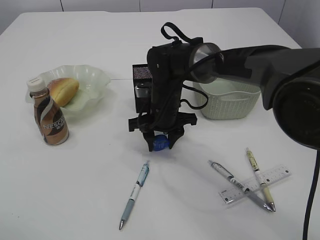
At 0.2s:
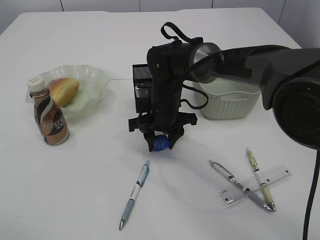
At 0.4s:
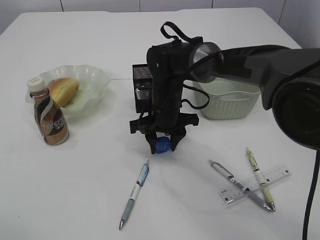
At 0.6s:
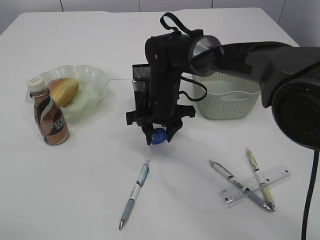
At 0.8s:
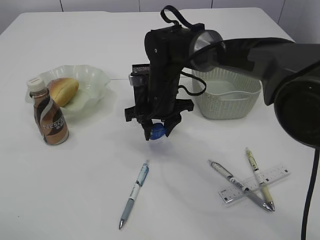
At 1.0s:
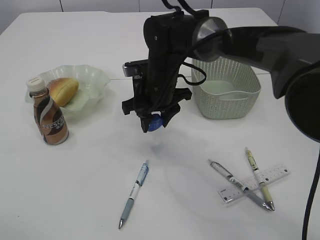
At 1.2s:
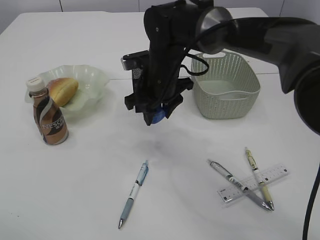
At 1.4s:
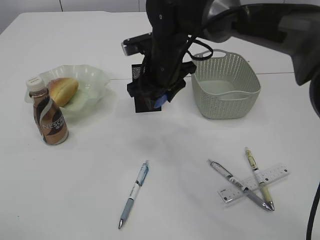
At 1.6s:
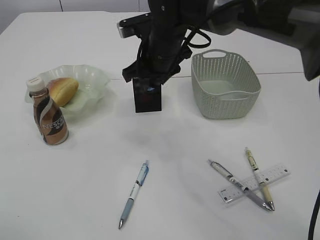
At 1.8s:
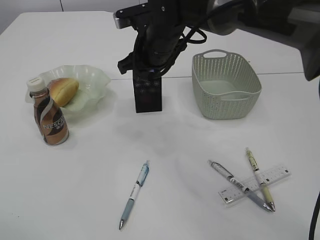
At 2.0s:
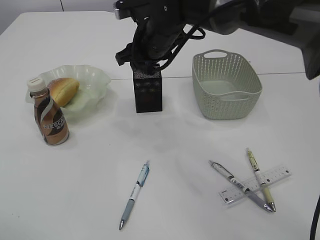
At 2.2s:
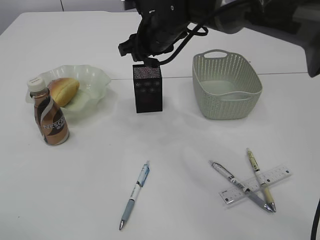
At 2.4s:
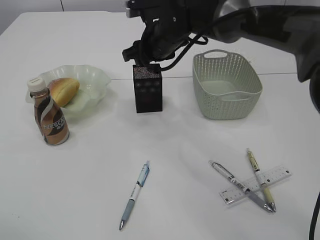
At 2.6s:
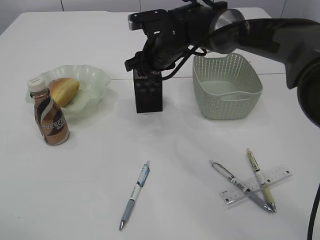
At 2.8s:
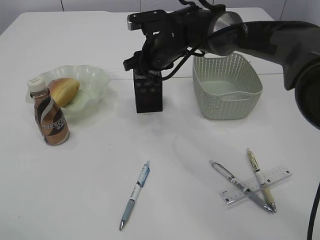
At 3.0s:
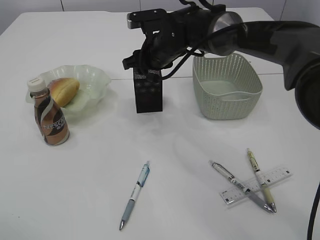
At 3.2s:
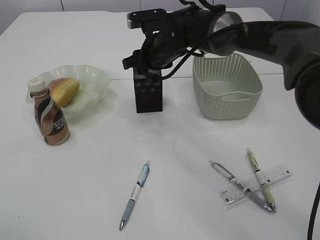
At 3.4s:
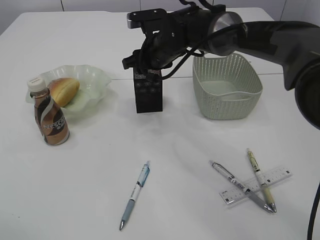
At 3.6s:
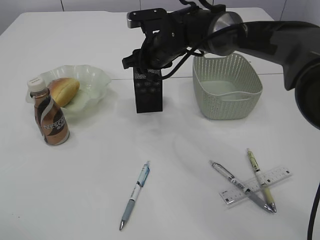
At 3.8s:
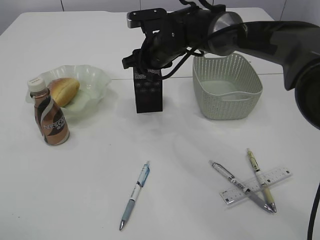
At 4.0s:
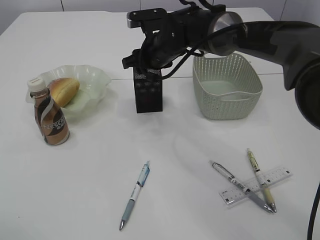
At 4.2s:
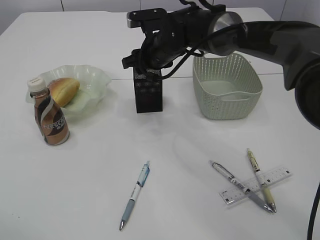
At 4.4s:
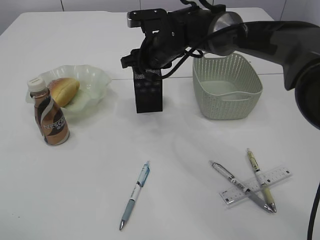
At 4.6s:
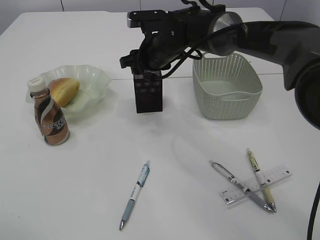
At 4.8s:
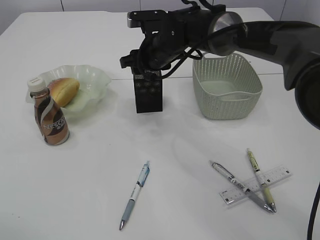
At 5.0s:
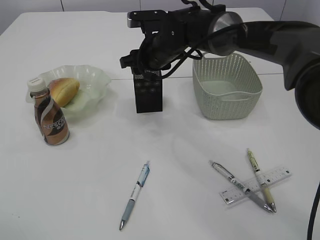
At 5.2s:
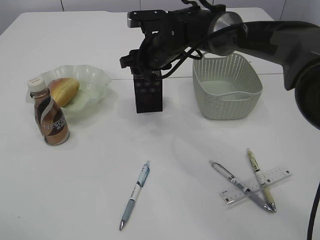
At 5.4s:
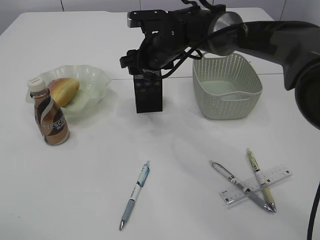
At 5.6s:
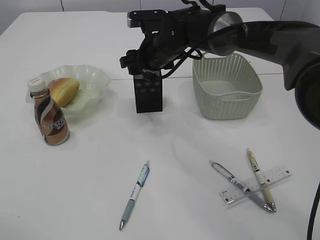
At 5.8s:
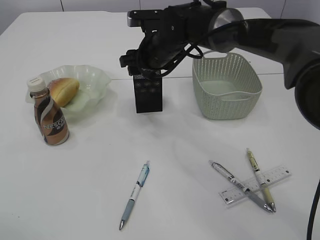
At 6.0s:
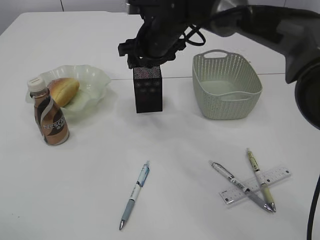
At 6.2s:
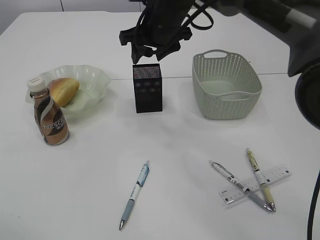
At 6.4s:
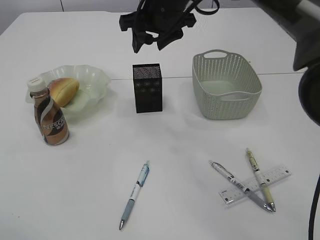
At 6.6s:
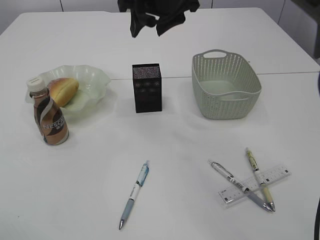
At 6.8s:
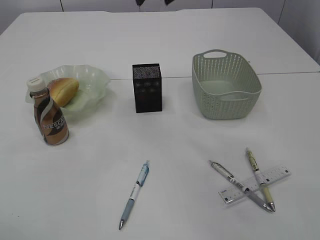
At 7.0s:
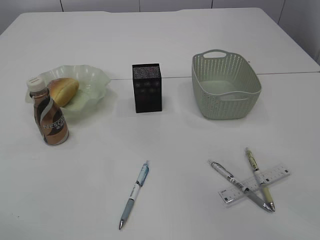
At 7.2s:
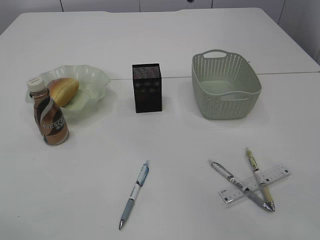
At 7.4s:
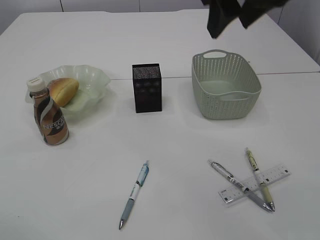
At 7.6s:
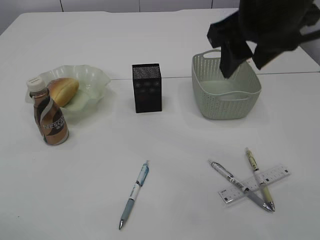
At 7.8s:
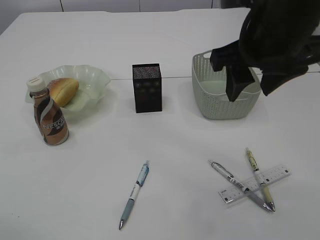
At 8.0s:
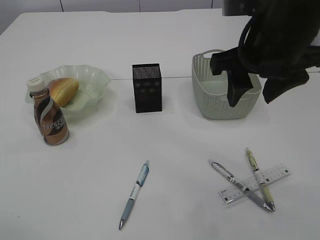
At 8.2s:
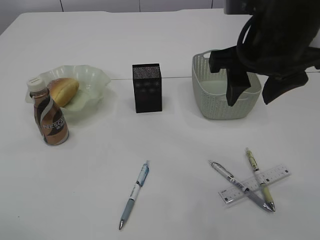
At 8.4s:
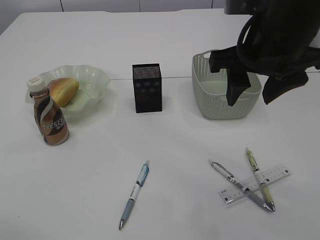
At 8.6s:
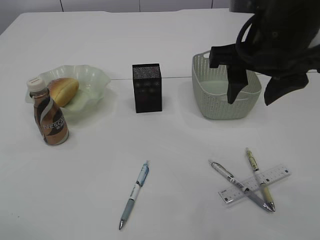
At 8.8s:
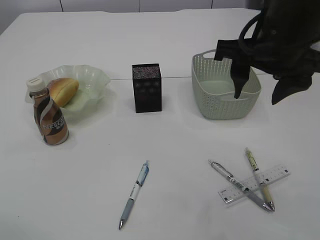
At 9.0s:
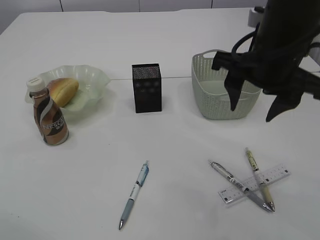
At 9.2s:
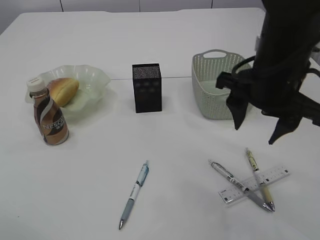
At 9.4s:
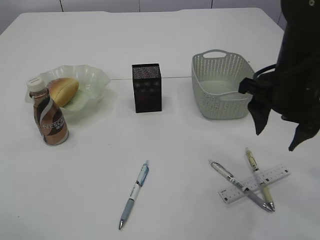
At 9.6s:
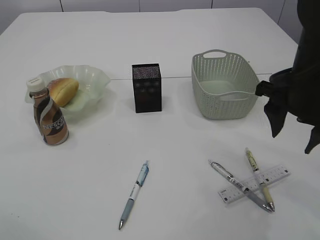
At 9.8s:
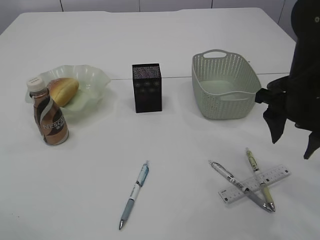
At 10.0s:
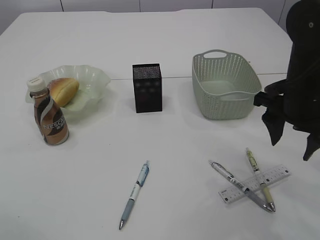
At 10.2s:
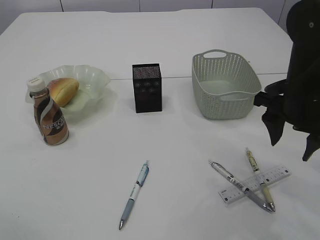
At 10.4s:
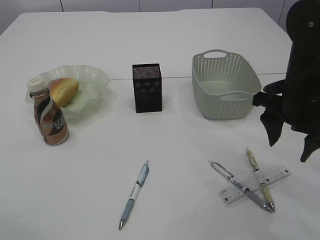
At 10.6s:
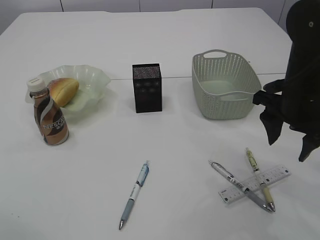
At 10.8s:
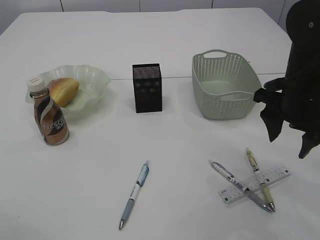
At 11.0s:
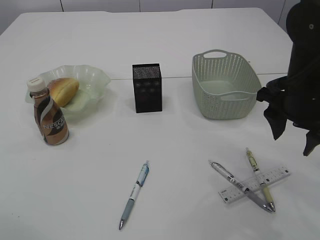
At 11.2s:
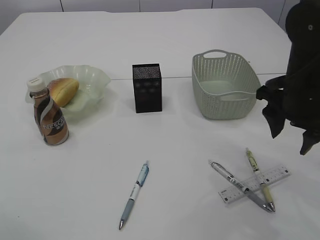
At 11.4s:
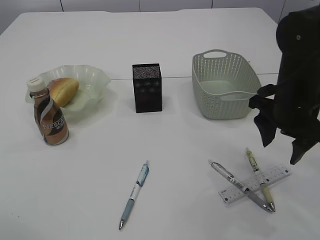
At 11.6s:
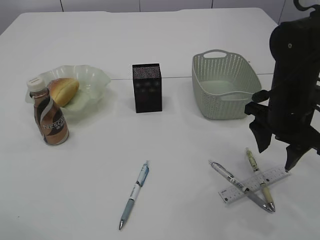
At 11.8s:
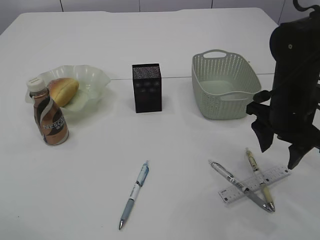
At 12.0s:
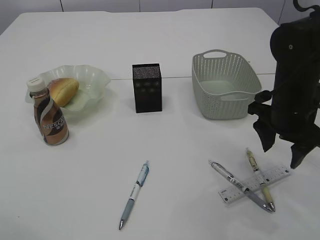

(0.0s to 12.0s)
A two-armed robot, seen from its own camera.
Step, 1.4s - 6.2s: Place the blue pencil sharpener into the pen holder.
0.0s - 1.6s: The right gripper shifts some 10 cm upward.
1.6s - 3.0s: The right gripper travels forward by about 5 cm.
3.0s - 4.4s: The two grippers keep their place.
4.4s - 6.0s: There are only small adjustments of the grippers.
6.0s - 7.6s: The right gripper is displaced backward, upward and to the right by roughly 25 cm.
7.6s - 9.0s: The right gripper travels downward by roughly 5 cm.
9.0s - 10.4s: The right gripper shifts roughly 10 cm downward and to the right.
10.4s - 12.0s: The grippers stay close to where they were, moving slightly.

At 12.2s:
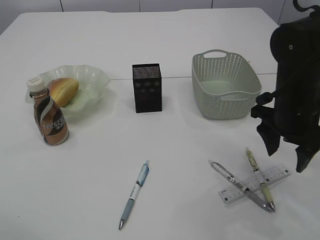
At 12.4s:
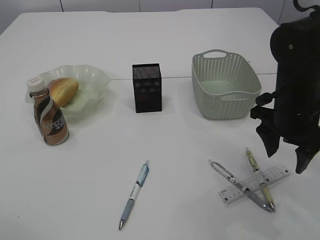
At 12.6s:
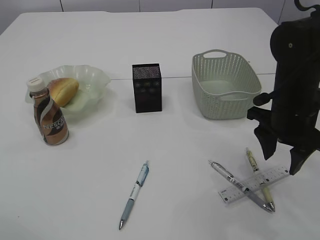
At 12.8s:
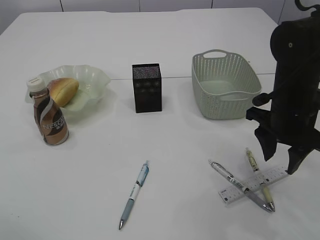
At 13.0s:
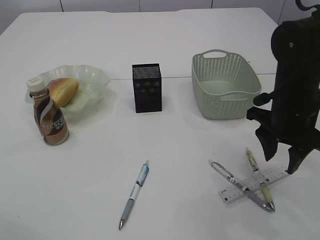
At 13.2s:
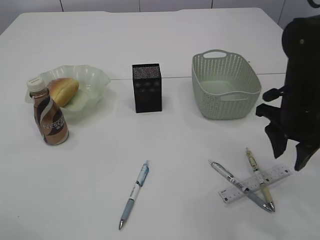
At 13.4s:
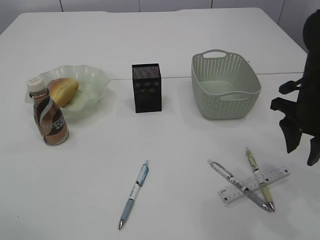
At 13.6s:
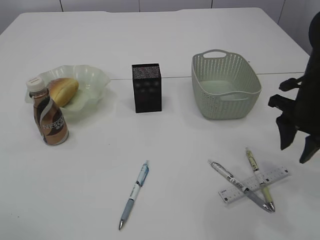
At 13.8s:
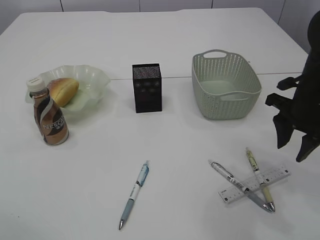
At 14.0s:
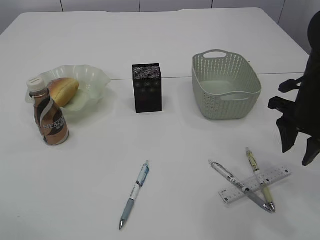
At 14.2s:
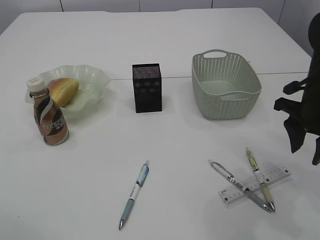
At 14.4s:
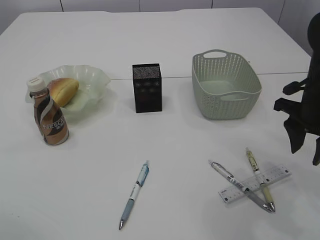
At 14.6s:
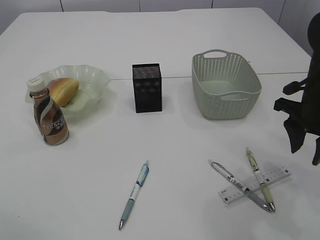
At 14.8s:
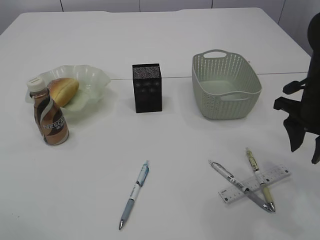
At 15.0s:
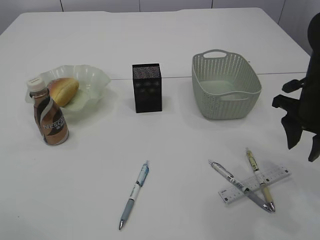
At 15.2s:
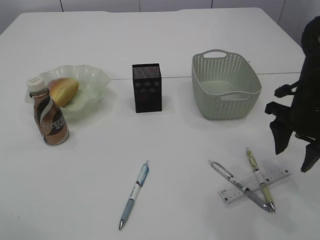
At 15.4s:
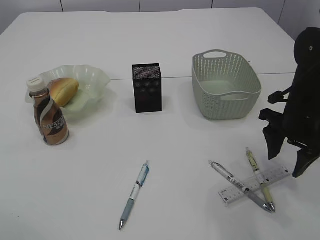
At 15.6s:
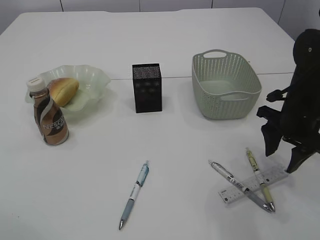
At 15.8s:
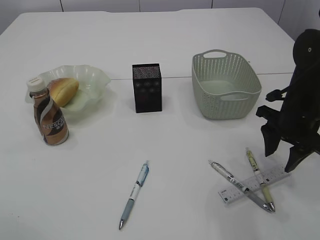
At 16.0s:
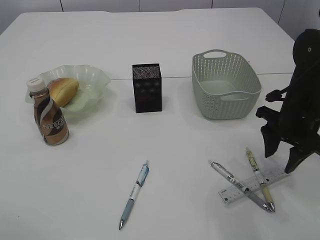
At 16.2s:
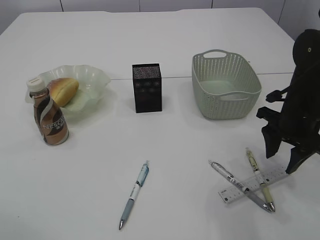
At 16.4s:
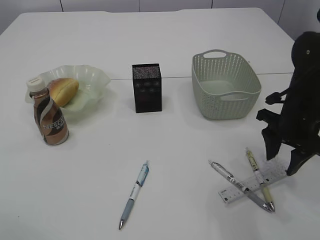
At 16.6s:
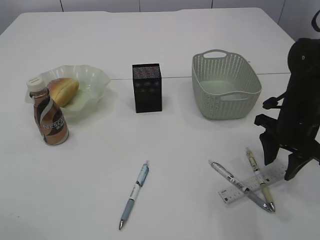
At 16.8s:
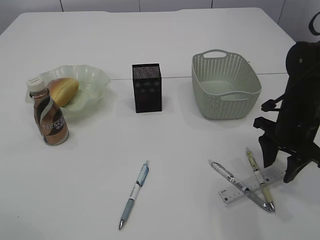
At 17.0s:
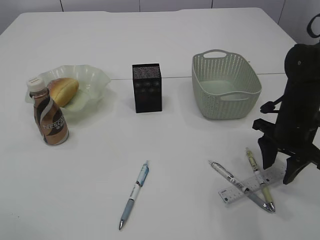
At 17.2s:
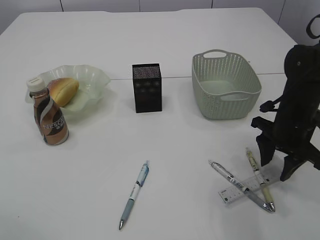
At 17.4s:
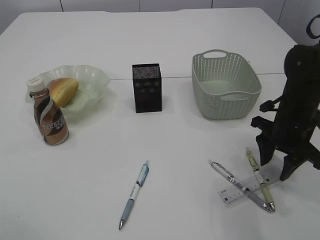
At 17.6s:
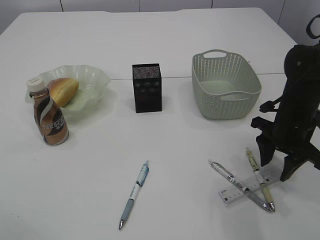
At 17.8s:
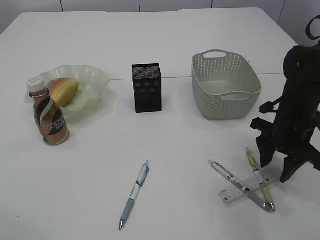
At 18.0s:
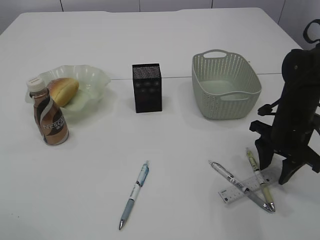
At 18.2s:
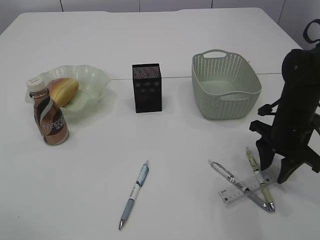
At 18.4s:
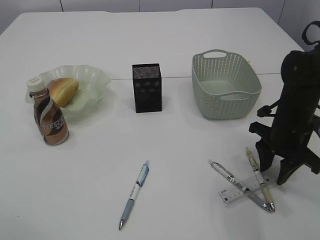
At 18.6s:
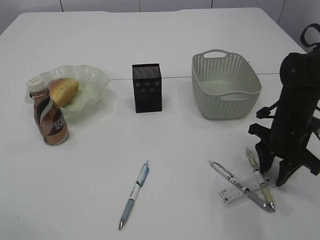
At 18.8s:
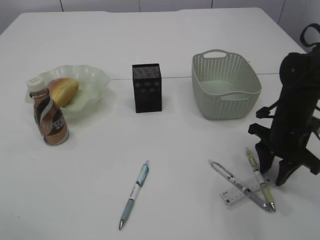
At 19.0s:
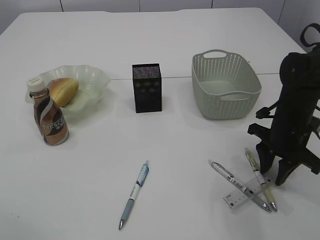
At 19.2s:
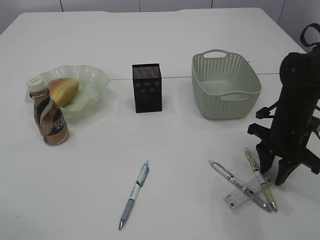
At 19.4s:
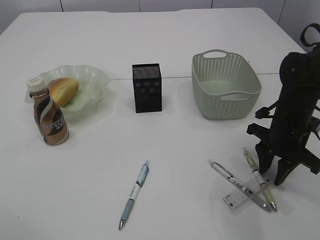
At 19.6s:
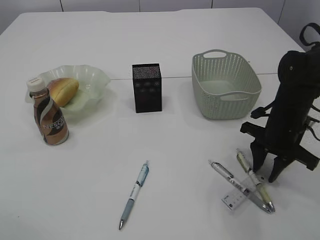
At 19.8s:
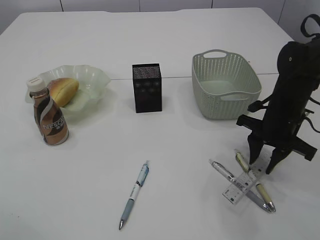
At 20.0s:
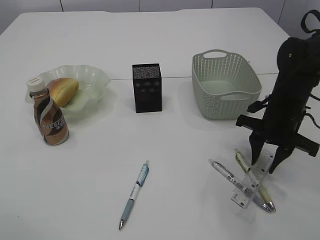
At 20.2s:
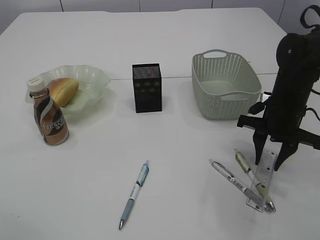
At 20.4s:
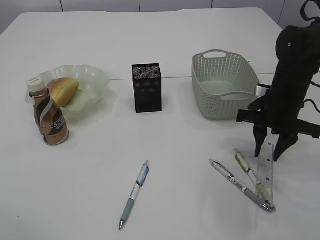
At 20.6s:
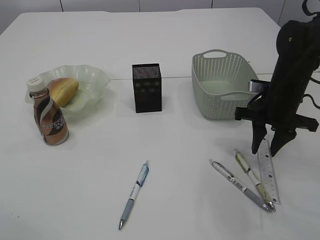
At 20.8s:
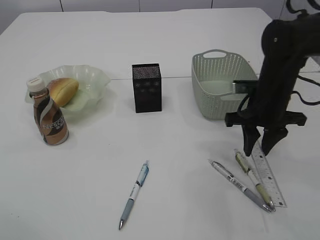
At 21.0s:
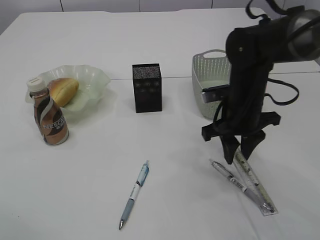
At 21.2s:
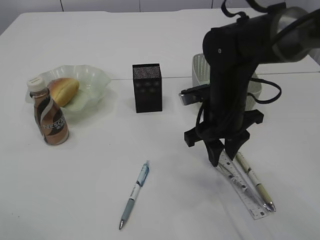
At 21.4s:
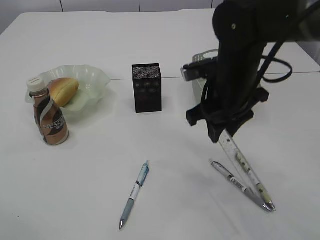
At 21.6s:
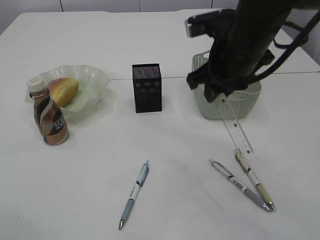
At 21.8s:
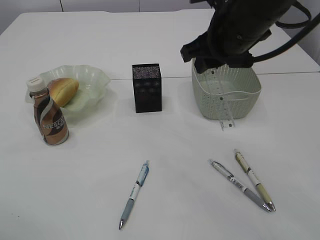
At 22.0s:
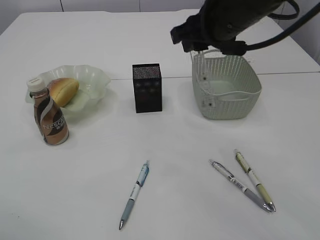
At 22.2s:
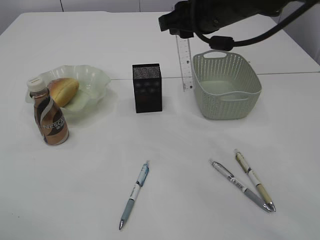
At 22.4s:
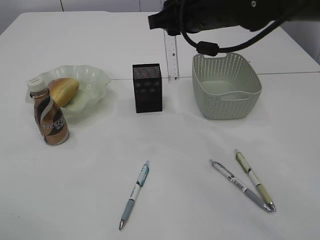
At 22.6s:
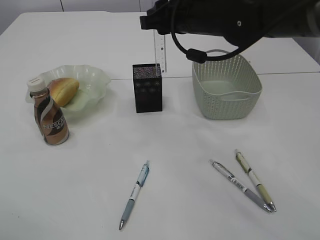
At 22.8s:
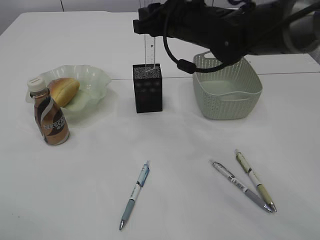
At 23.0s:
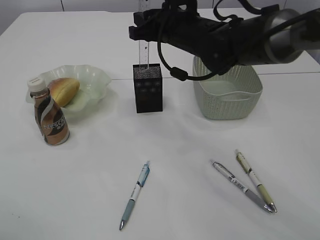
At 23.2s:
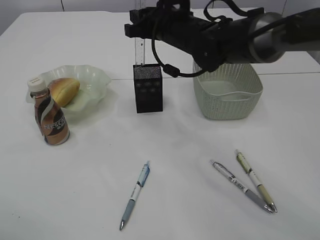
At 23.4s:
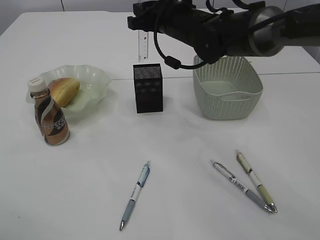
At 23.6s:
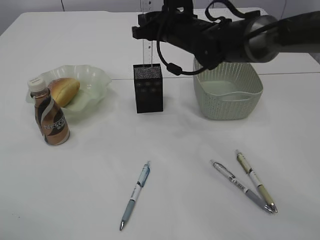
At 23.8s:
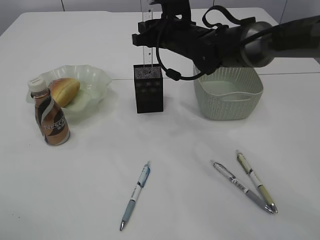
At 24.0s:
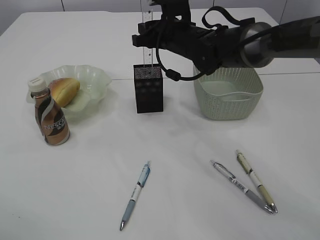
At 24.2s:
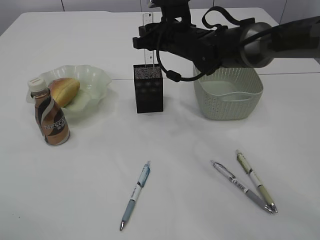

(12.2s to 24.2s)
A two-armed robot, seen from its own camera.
Step, 12.2s - 21.0s: pick up the ruler.
12.2s - 16.6s: The grippers move only a little.
16.6s - 19.8s: The grippers move only a little.
19.8s - 21.2s: The right gripper goes roughly 10 cm to the left.
21.2s - 22.6s: The right gripper travels upward and forward by roughly 15 cm.
22.6s - 24.2s: The right gripper travels forward and downward by approximately 10 cm.
